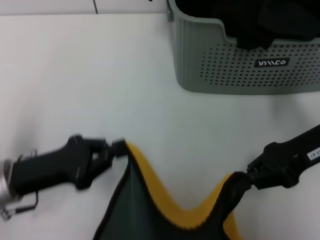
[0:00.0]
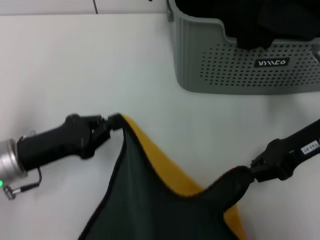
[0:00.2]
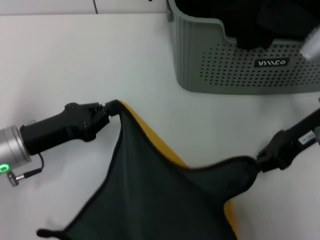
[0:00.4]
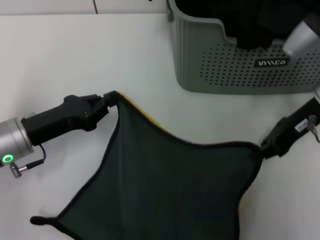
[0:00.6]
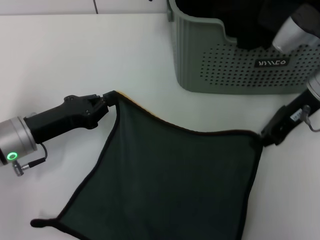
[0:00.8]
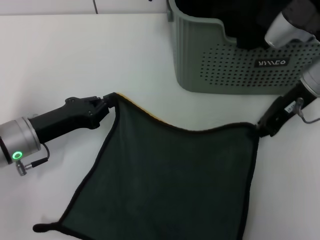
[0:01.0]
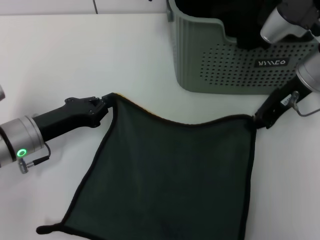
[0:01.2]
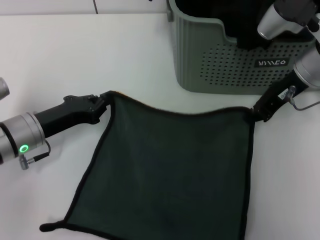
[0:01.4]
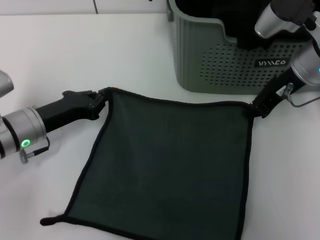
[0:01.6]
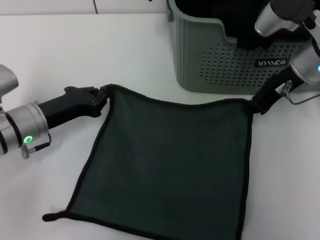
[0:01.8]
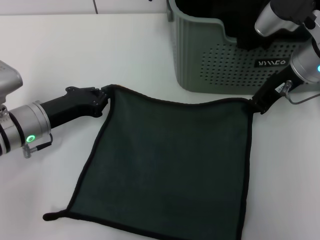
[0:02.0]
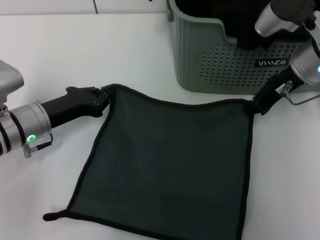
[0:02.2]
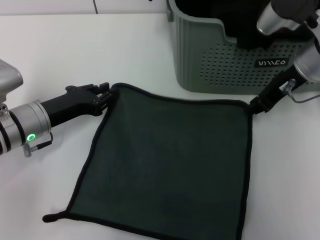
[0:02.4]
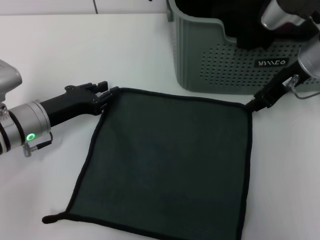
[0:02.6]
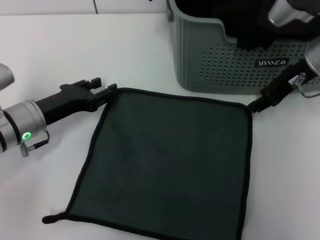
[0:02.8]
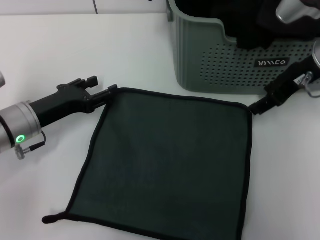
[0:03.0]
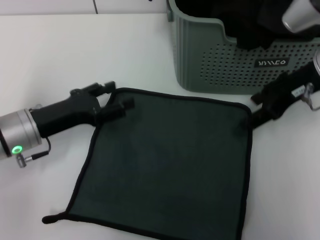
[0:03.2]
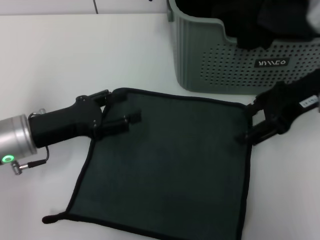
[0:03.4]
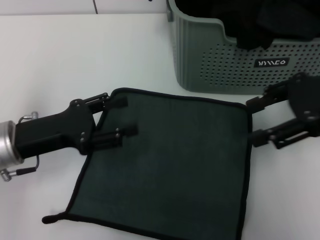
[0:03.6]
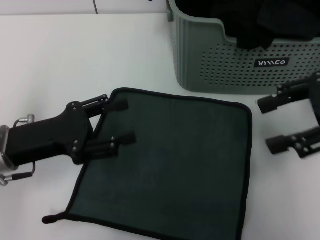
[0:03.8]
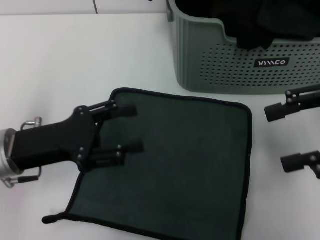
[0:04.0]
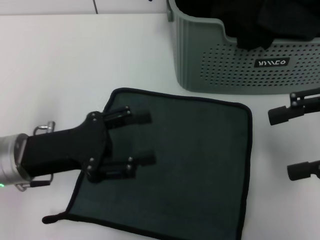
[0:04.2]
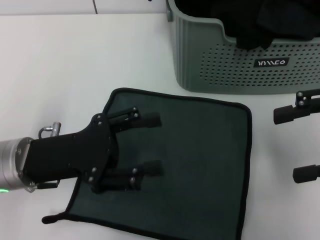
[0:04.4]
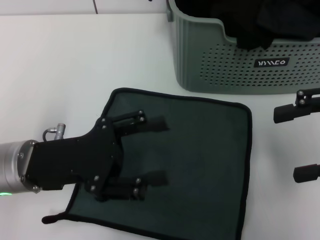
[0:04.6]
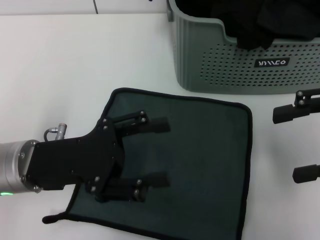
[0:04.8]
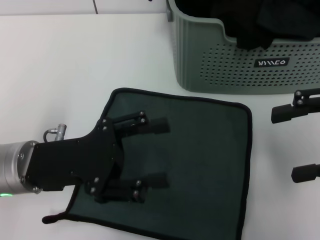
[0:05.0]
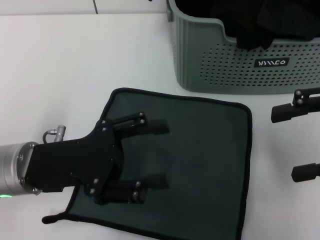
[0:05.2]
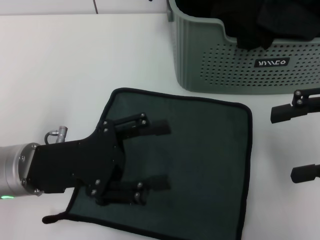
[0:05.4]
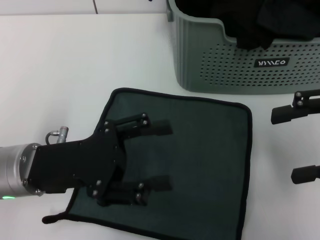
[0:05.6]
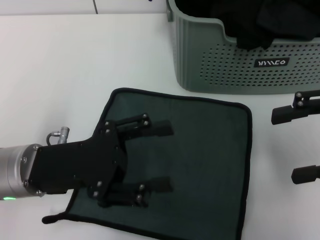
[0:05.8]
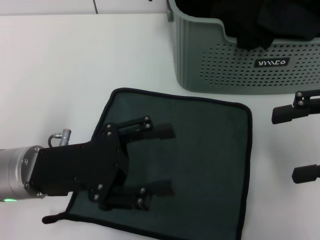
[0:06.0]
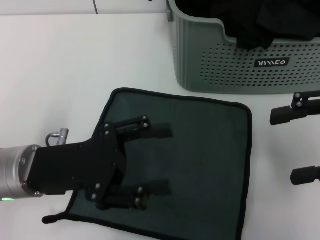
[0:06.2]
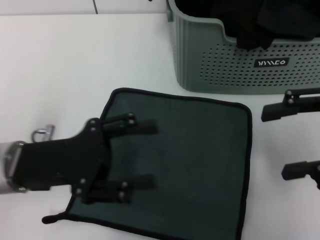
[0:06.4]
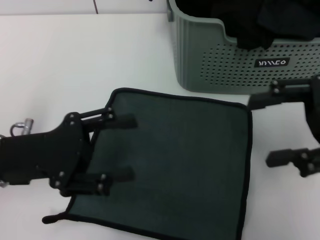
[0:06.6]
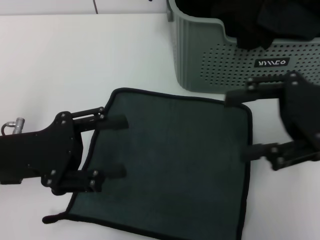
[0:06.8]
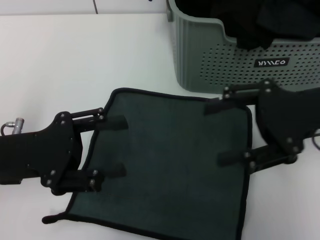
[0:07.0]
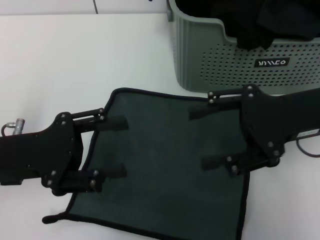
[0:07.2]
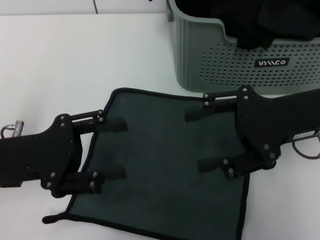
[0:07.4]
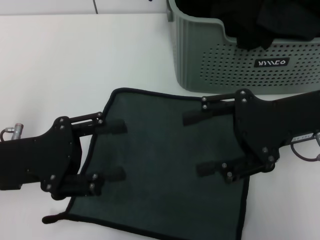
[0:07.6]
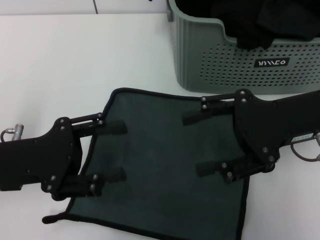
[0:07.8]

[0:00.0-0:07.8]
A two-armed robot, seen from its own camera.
Task of the whole recording: pick up the towel from the storage box and lay it flat on the table.
Step, 0:00.0 to 0:02.4: Spread the towel flat with the right gripper.
0:00.0 to 0:01.6: The grippers both shift forward by approximately 10 cm.
0:01.6 to 0:03.2: The left gripper opens. The right gripper shifts by some 5 cm, and opens its fingers.
0:03.2 to 0:04.6: The left gripper heads backward, covering some 5 cm. The right gripper heads backward and to the right, covering roughly 15 cm.
0:04.6 to 0:06.2: Neither gripper changes place.
0:06.2 to 0:07.8: The left gripper travels to the left by roughly 5 cm, while the right gripper moves to the left and downward, approximately 10 cm.

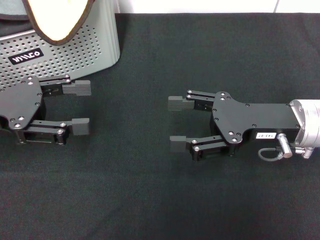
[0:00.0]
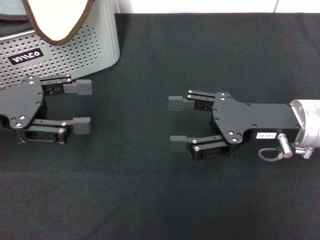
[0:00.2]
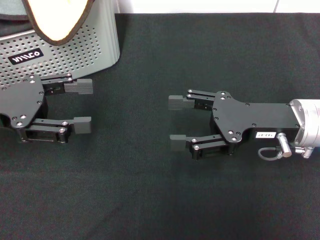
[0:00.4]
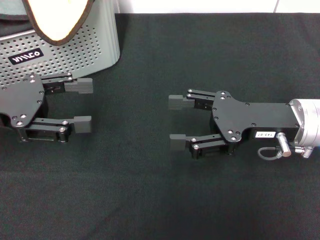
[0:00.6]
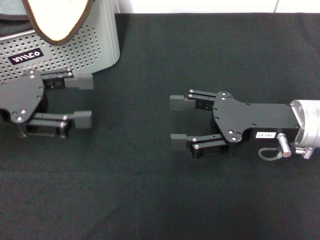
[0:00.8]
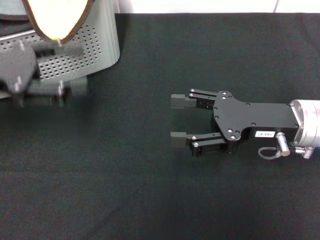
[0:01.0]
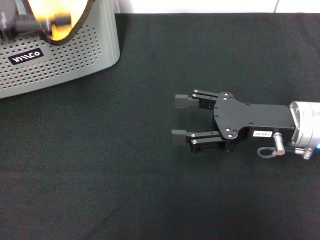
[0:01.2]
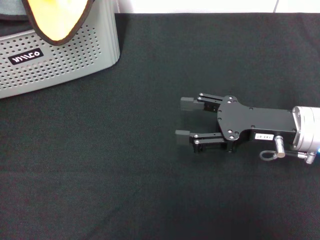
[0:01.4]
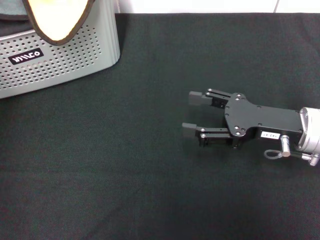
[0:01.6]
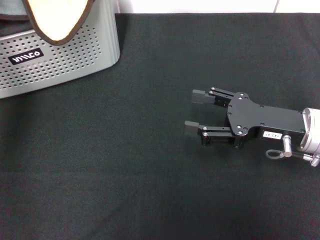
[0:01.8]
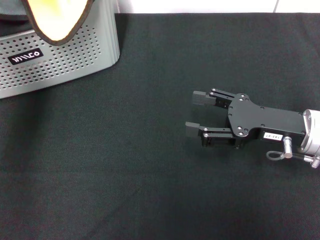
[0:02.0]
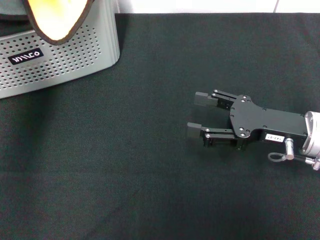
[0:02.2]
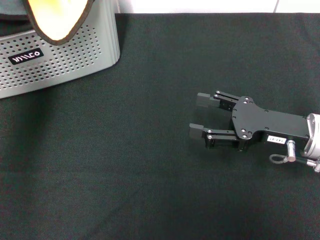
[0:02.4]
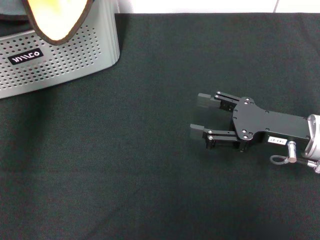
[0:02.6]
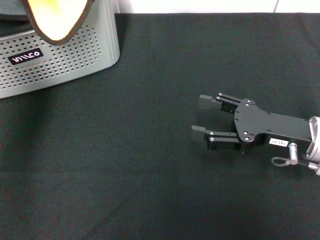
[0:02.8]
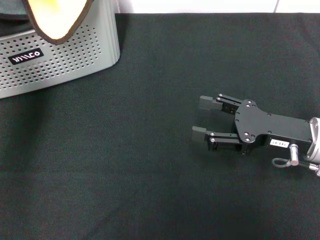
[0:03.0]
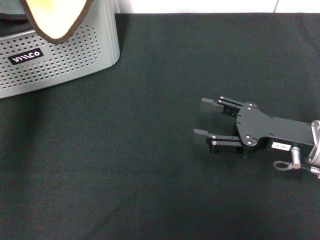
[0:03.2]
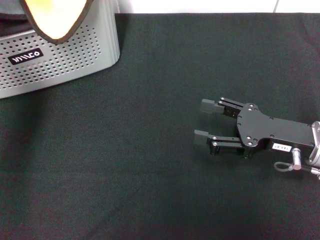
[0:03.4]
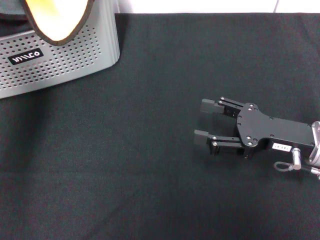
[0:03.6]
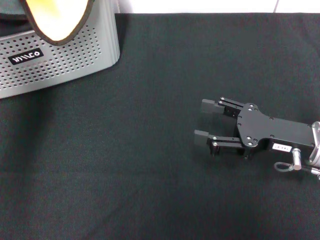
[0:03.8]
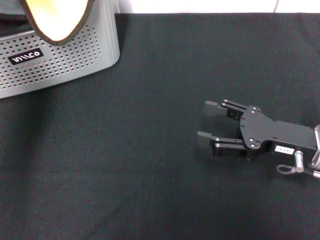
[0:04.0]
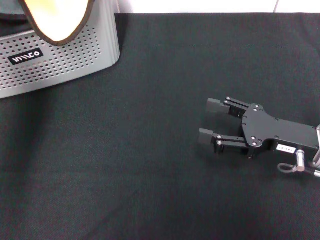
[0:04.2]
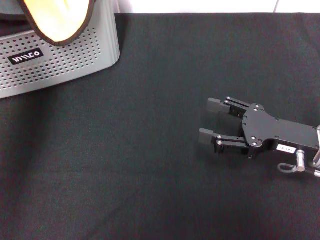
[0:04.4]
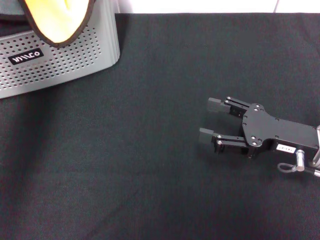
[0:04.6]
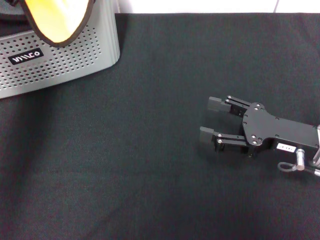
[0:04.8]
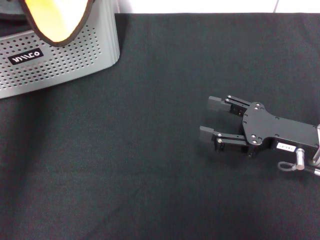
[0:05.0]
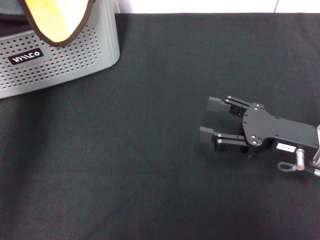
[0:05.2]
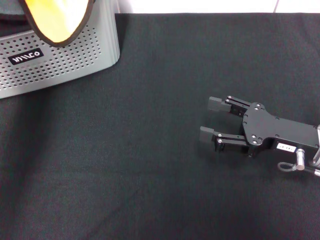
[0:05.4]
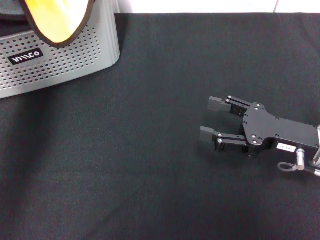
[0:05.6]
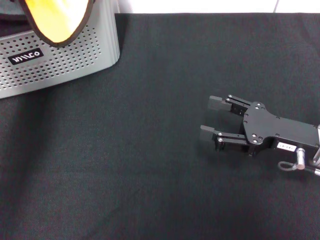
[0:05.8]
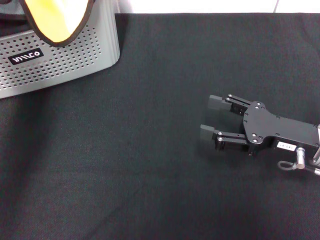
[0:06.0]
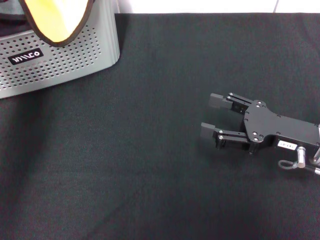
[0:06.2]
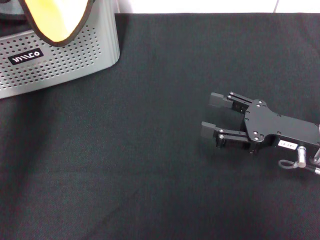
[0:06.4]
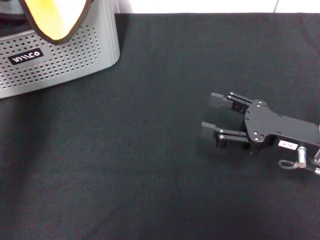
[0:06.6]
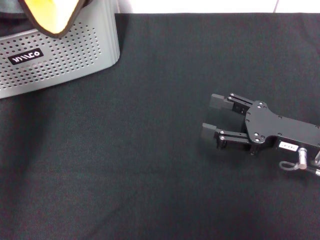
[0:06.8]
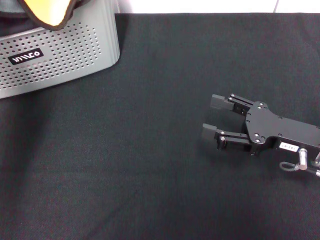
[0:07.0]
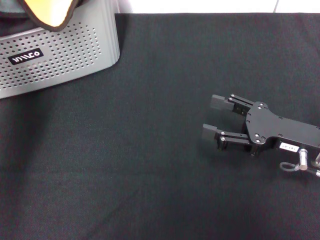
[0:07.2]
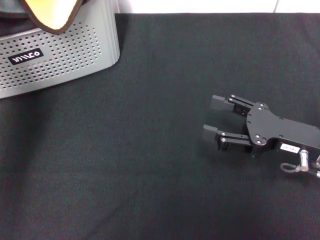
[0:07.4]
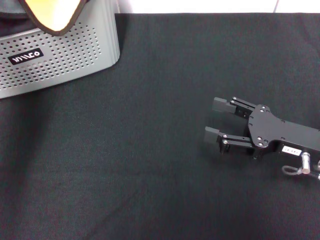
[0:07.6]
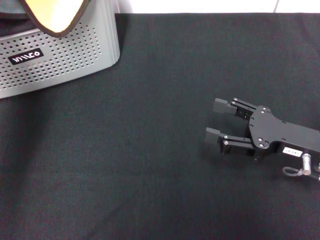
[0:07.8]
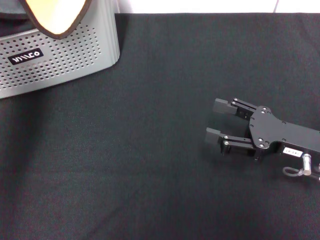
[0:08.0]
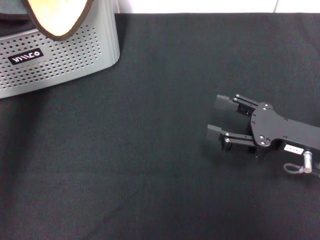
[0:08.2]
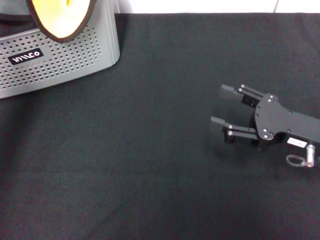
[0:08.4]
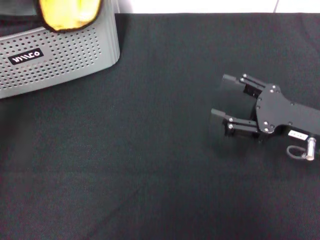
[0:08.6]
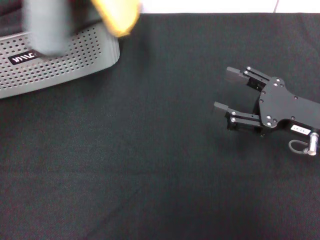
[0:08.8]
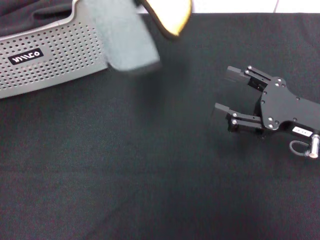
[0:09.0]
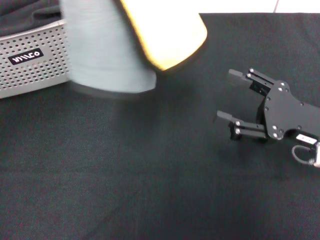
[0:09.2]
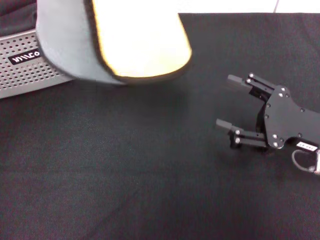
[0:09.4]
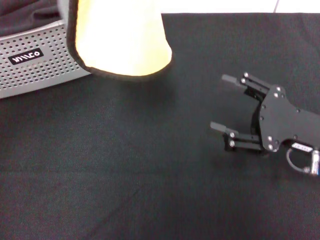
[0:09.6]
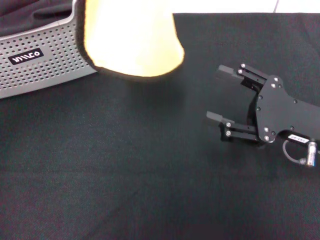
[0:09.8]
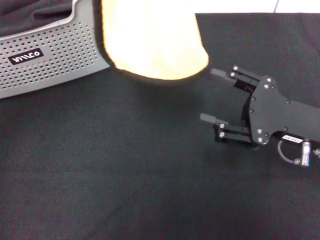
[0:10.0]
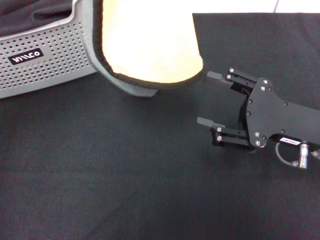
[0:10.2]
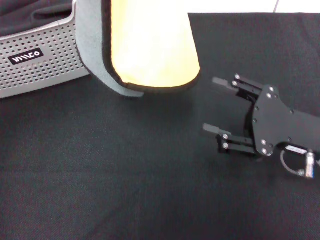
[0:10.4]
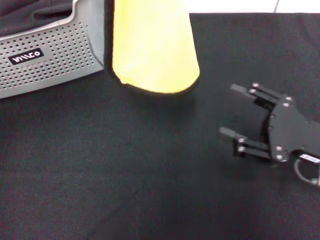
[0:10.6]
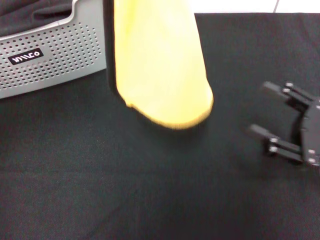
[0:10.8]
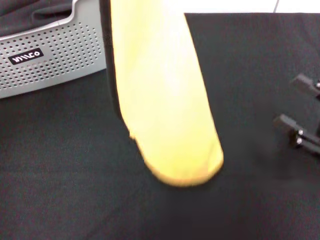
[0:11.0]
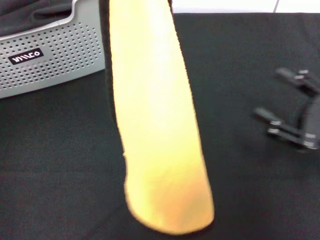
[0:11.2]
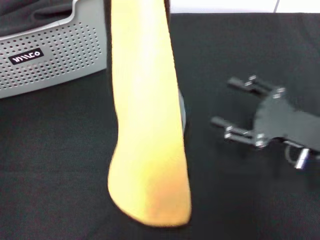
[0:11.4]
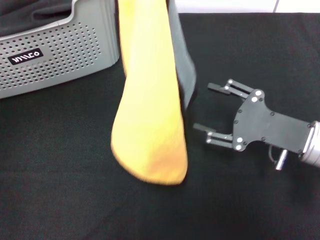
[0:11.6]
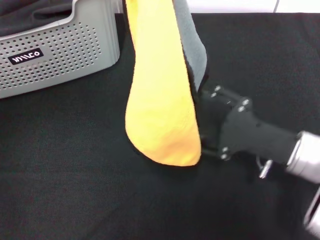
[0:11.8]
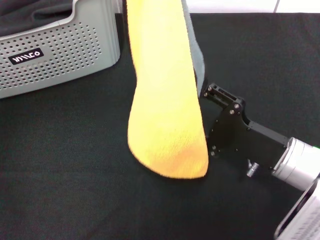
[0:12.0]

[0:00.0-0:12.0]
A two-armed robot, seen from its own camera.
Task of the whole recording: pick up the towel from the storage box and lay it flat on the black tablecloth.
Step, 0:00.0 to 0:03.8: Pick up a towel with the left gripper.
0:00.0 to 0:01.6: The left gripper shifts approximately 15 cm upward.
0:01.6 to 0:03.0: The left gripper moves forward and downward, about 10 cm.
0:03.0 to 0:04.4: The left gripper closes its fingers.
0:04.4 to 0:06.0: The left gripper travels downward by roughly 10 cm, and opens.
0:06.0 to 0:07.6: The left gripper closes up.
0:07.6 to 0:09.0: The left gripper is displaced upward and backward by about 20 cm.
0:09.0 to 0:10.4: The grippers stay close to where they were, moving slightly.
0:10.4 to 0:12.0: The right gripper ends up approximately 5 cm from where it was.

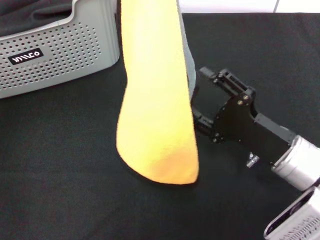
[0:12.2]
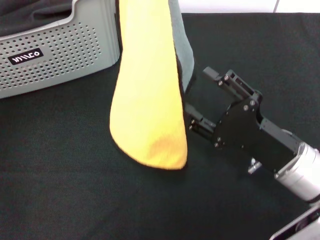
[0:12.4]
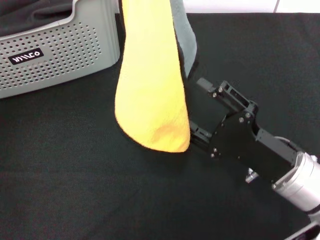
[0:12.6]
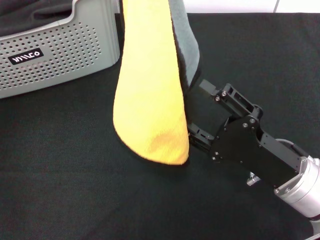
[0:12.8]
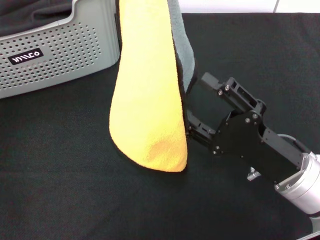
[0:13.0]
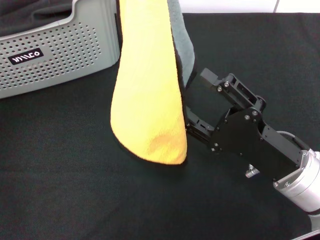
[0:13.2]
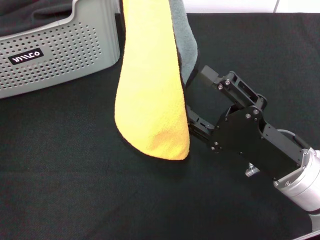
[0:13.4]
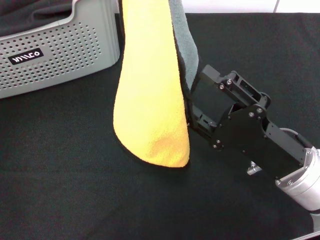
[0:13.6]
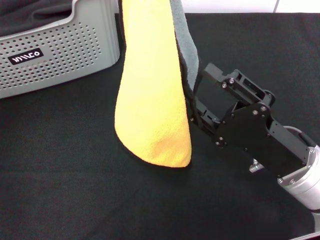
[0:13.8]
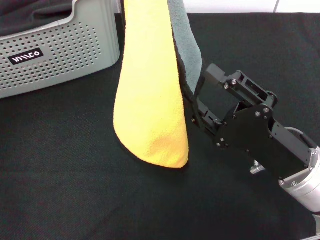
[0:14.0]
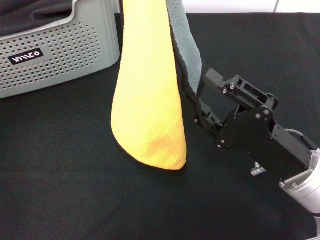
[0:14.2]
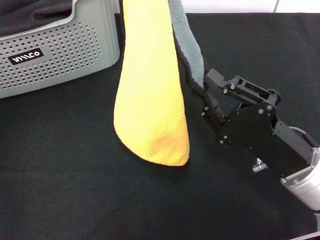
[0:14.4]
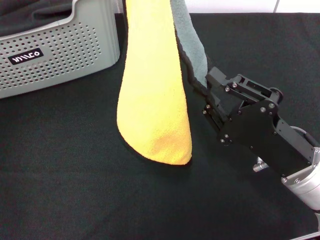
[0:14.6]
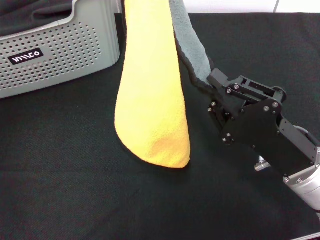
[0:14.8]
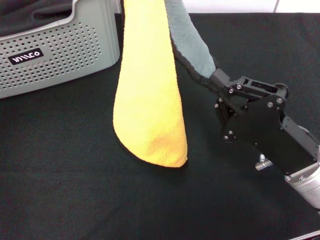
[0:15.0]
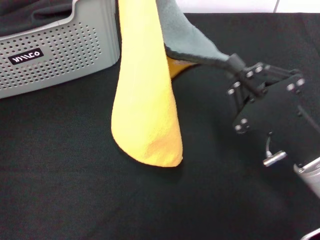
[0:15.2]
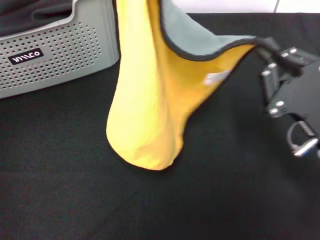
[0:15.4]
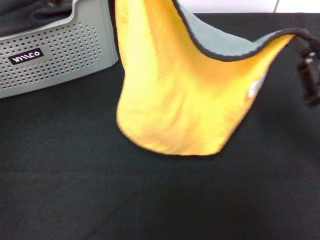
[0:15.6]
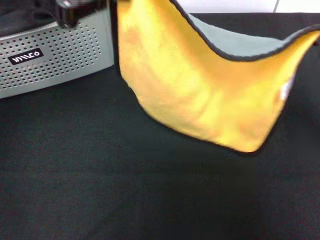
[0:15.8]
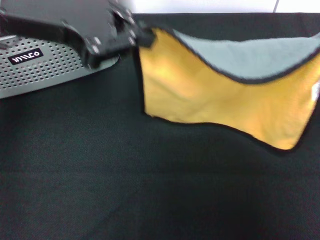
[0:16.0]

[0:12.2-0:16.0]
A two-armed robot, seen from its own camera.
Task of the whole recording: pick up the towel from the storage box and lay it flat on the black tablecloth.
Step, 0:12.2 to 0:15.0: Spread the towel flat with the left gripper.
0:12.2 to 0:13.4: There are only small adjustments of the grippers.
0:13.4 to 0:14.8: The right gripper closes its fingers.
0:14.8 to 0:16.0: The right gripper is displaced to the right by roughly 15 cm. Meanwhile the left gripper travels downward by approximately 5 cm.
